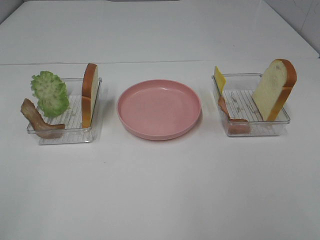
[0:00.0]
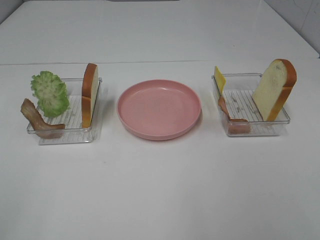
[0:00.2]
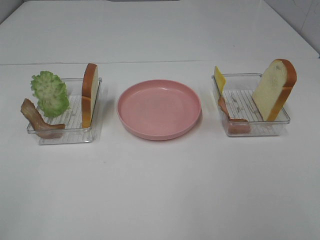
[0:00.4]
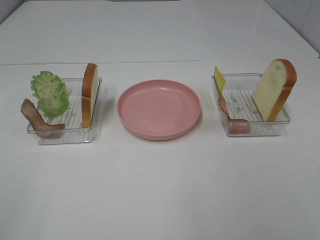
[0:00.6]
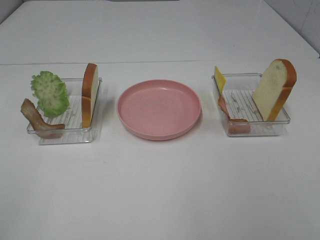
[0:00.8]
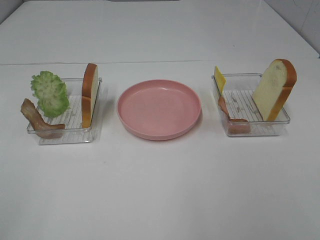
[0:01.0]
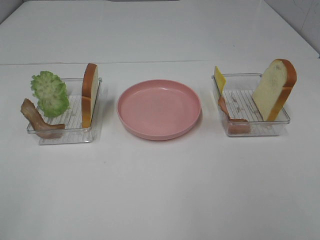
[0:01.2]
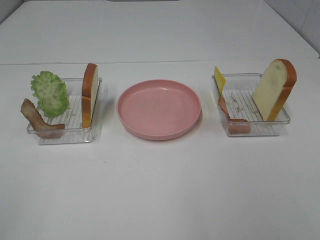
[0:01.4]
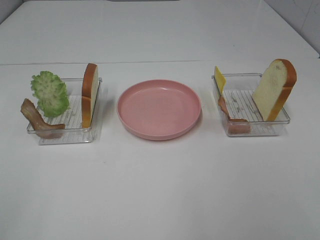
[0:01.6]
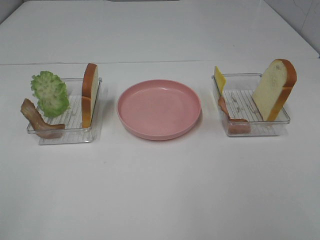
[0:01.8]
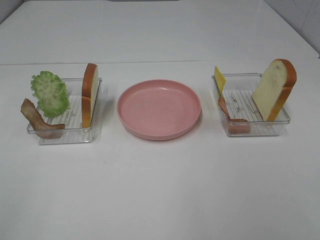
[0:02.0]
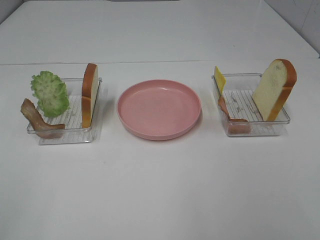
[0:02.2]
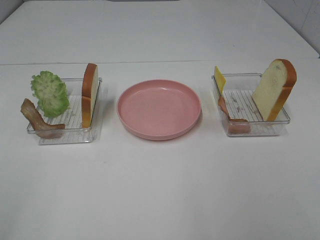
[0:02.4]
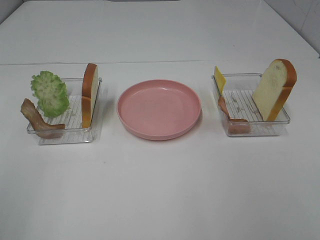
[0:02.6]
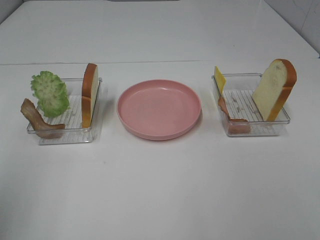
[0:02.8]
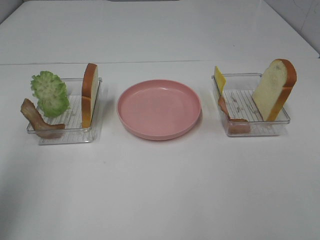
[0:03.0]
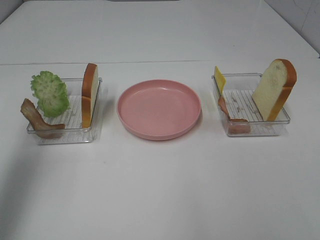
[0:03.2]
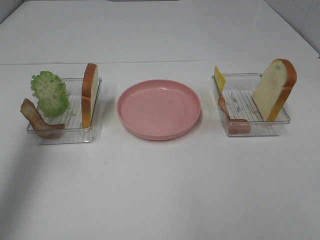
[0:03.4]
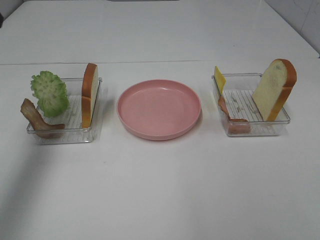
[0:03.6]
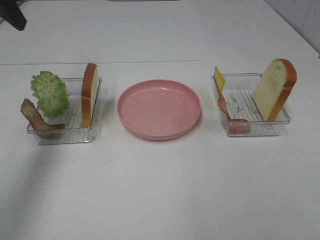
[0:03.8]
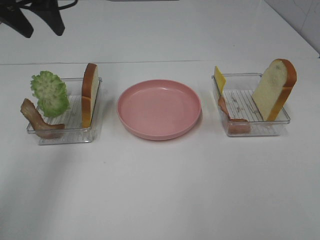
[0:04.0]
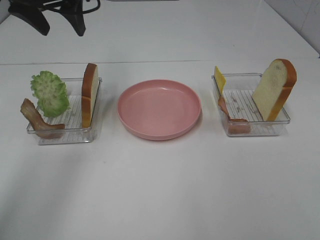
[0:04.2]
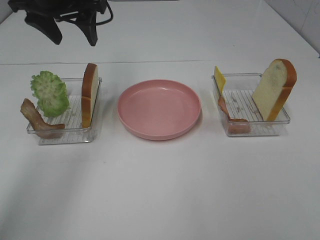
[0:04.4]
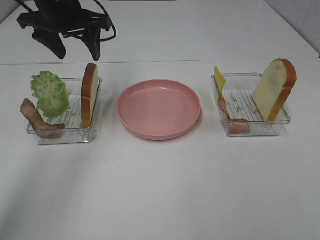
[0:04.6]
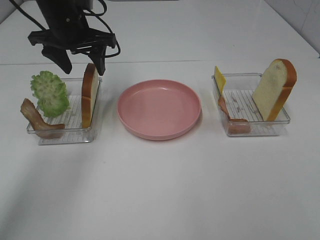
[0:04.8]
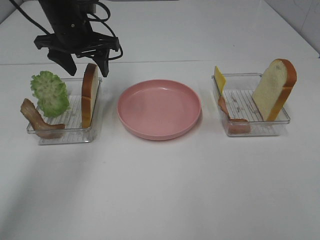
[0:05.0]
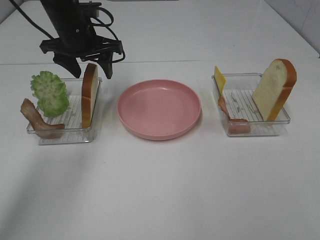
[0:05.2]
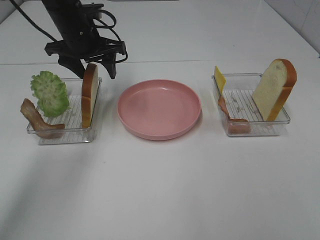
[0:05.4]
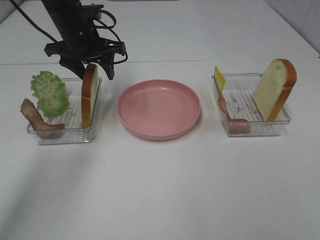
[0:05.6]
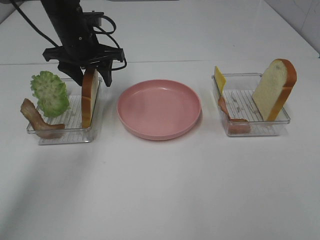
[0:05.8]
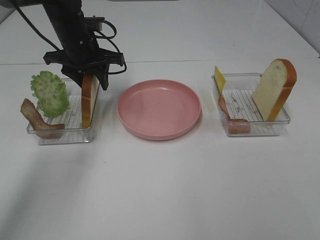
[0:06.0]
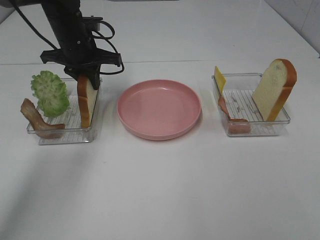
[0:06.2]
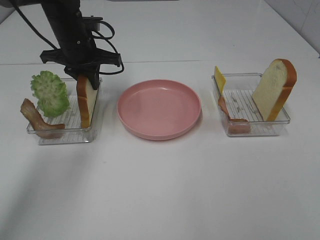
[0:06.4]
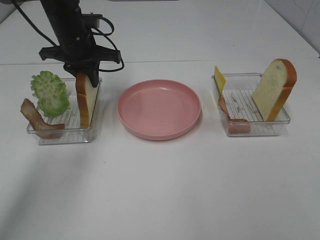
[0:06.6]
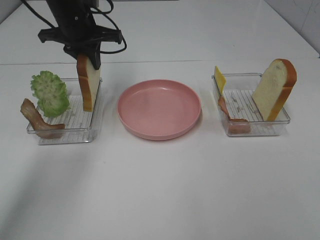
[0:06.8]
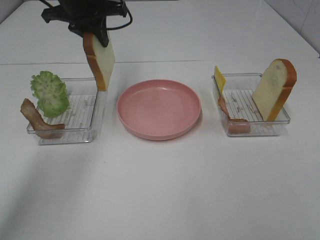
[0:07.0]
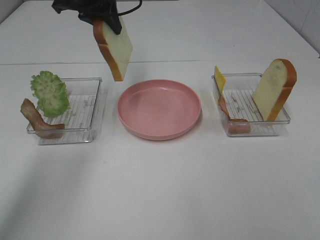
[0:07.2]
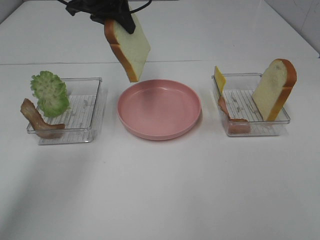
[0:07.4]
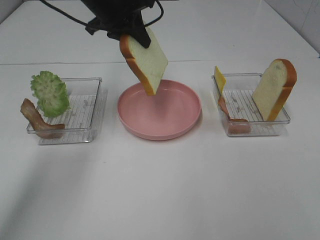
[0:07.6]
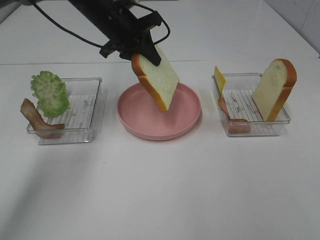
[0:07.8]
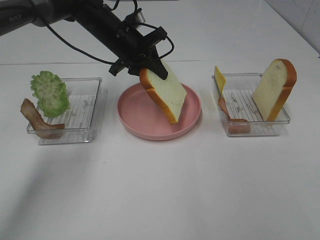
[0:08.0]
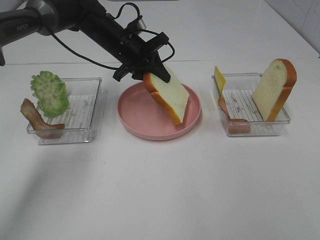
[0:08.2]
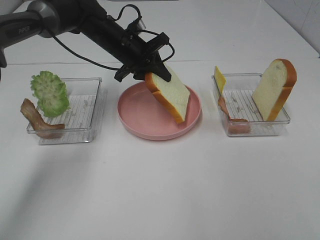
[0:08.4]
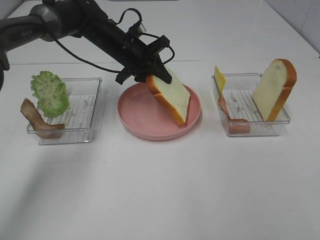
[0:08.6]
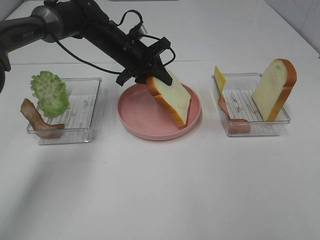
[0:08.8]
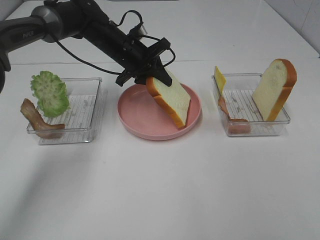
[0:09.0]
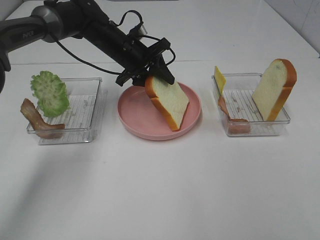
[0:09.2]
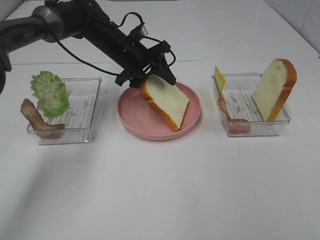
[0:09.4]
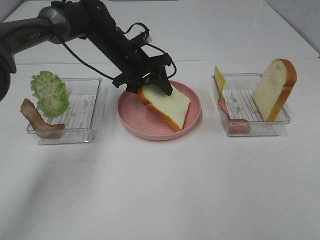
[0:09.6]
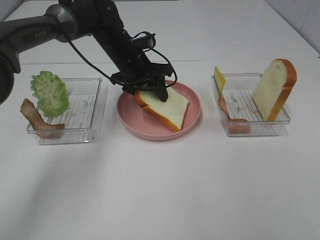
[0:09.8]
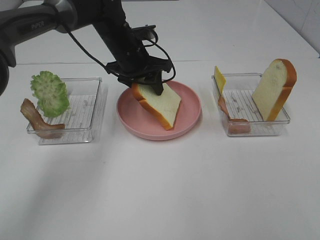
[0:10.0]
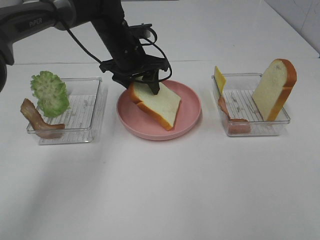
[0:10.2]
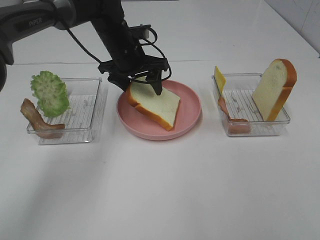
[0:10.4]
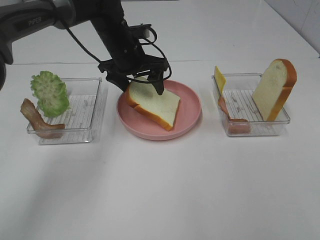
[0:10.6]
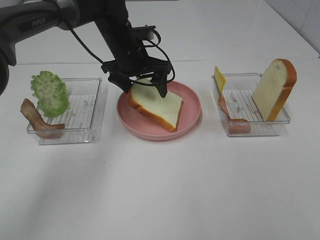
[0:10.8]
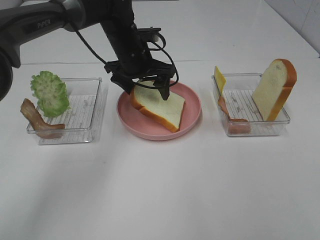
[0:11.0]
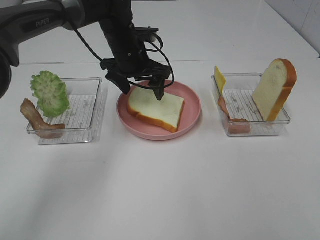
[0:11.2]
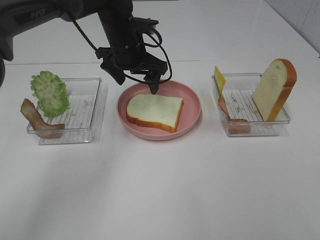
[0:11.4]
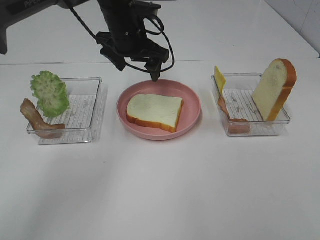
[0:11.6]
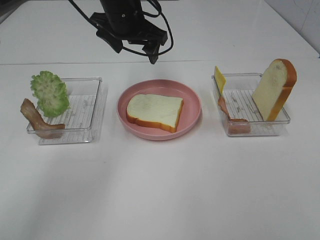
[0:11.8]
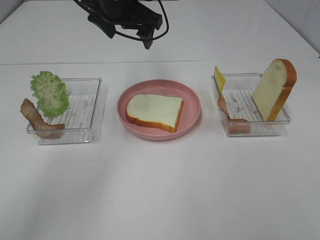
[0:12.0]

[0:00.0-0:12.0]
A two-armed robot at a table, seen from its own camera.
Task of the whole recording: Make sandwiches.
Step, 0:00.0 to 0:06.4: Left hand:grab the bread slice.
Step, 0:06.6 to 0:11.4: Left hand:place the bread slice on the plate.
0:00.0 to 0:01.6: Neither gripper changes place.
0:01.6 to 0:03.0: The left gripper moves forward, approximately 15 cm.
0:03.0 to 0:04.4: The left gripper moves forward and to the right, roughly 30 cm.
0:04.4 to 0:06.0: The left gripper travels downward by about 10 cm.
0:06.0 to 0:07.6: The left gripper heads upward, covering some 5 cm.
0:07.6 to 0:09.0: The left gripper shifts approximately 10 cm downward.
0:09.0 to 0:10.4: The left gripper opens its fingers.
0:10.4 to 0:12.0: The left gripper moves upward, some 10 cm.

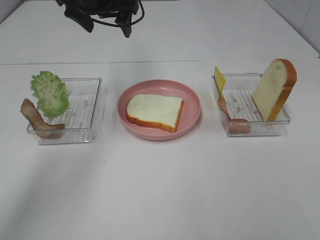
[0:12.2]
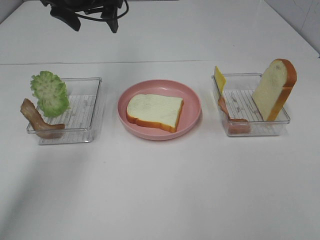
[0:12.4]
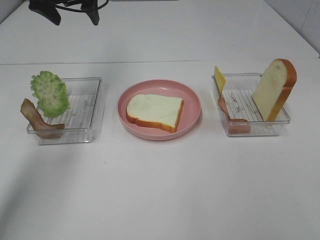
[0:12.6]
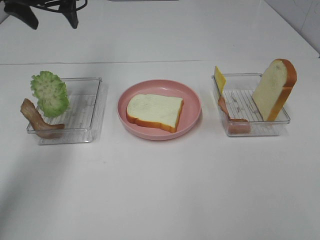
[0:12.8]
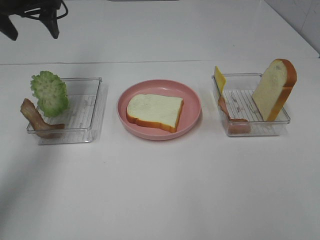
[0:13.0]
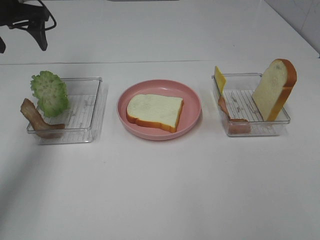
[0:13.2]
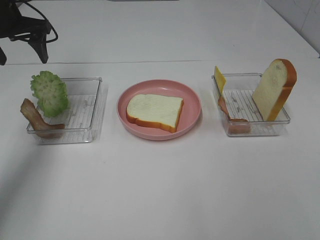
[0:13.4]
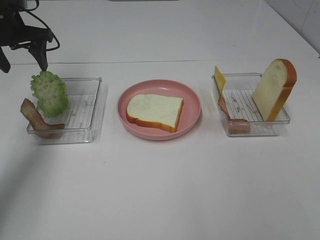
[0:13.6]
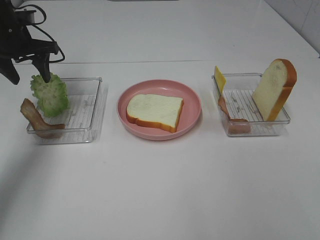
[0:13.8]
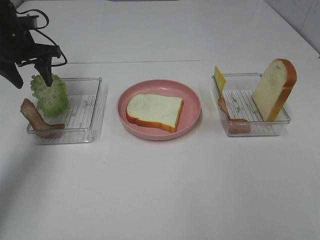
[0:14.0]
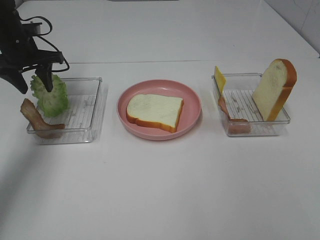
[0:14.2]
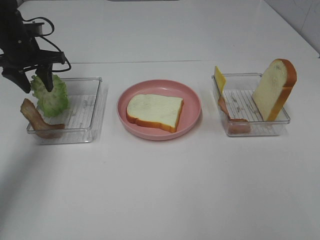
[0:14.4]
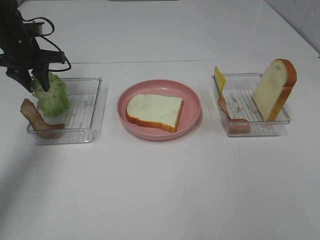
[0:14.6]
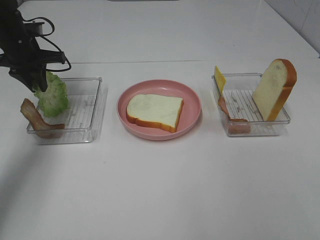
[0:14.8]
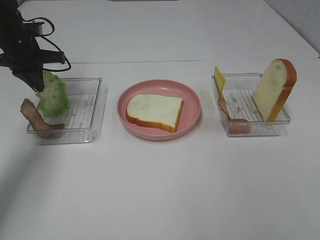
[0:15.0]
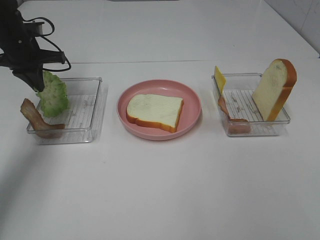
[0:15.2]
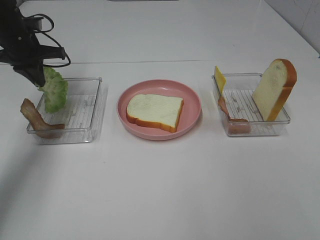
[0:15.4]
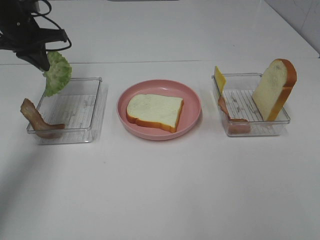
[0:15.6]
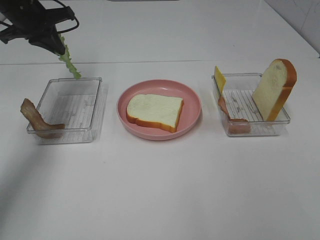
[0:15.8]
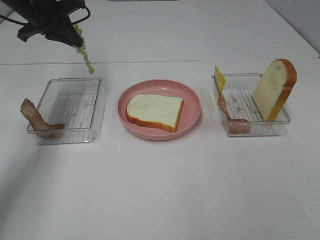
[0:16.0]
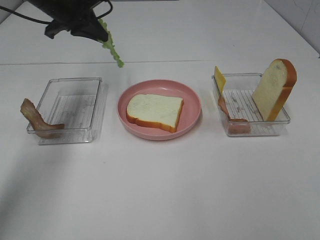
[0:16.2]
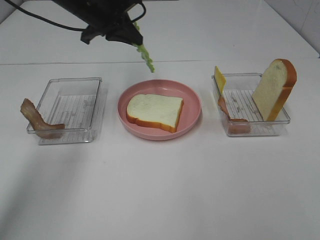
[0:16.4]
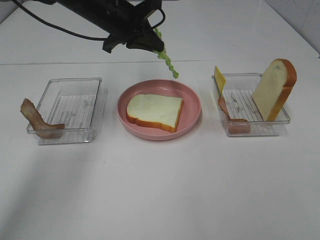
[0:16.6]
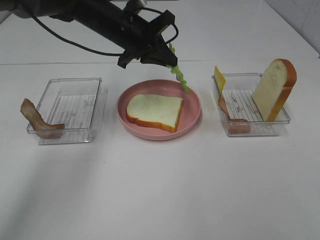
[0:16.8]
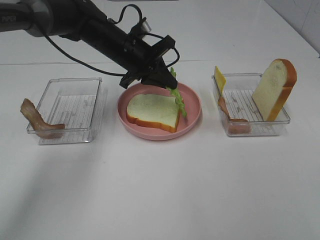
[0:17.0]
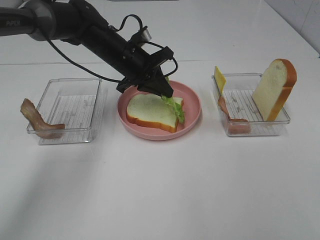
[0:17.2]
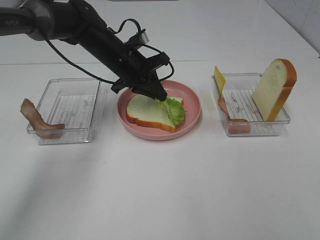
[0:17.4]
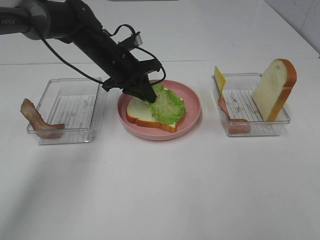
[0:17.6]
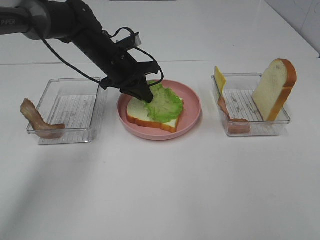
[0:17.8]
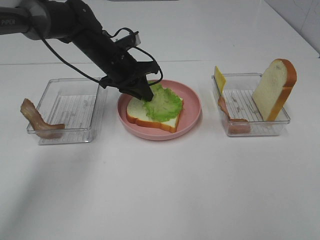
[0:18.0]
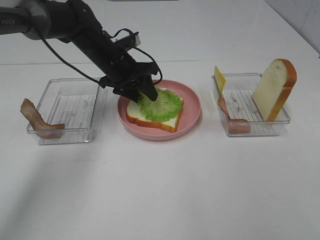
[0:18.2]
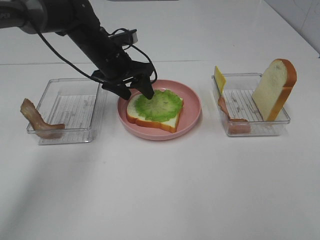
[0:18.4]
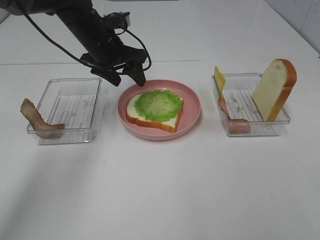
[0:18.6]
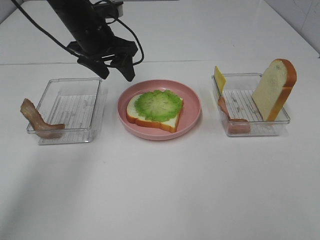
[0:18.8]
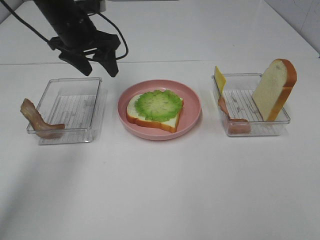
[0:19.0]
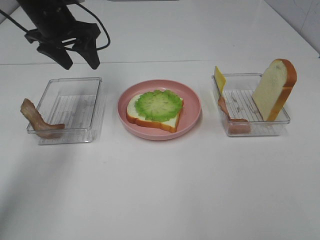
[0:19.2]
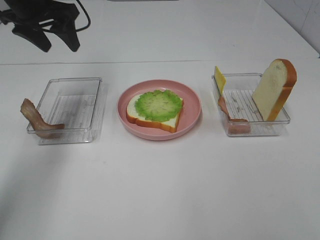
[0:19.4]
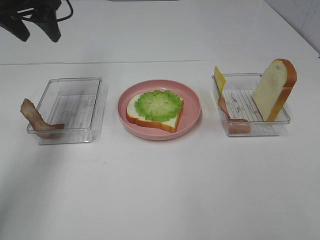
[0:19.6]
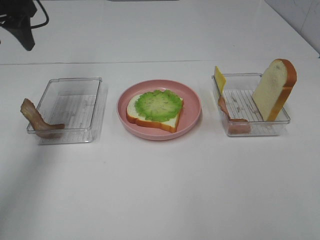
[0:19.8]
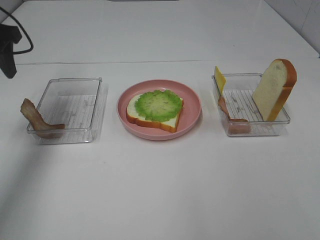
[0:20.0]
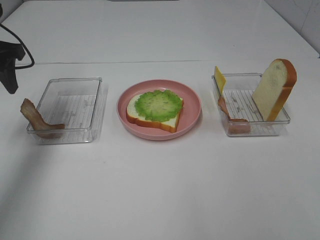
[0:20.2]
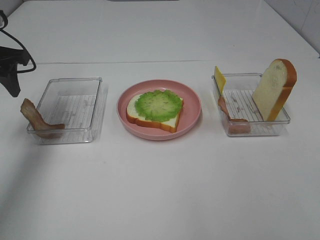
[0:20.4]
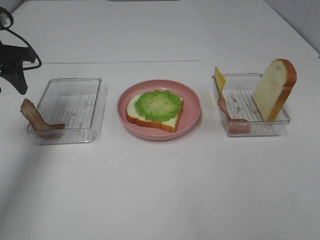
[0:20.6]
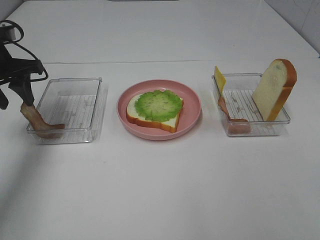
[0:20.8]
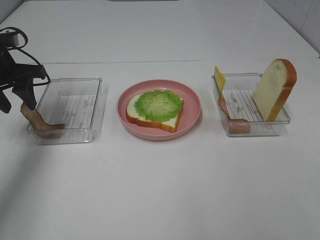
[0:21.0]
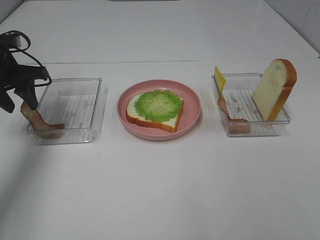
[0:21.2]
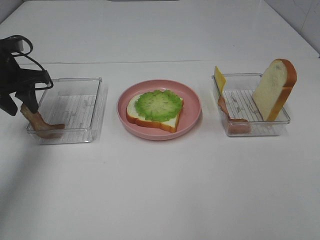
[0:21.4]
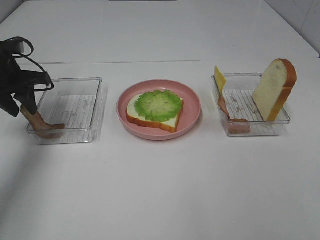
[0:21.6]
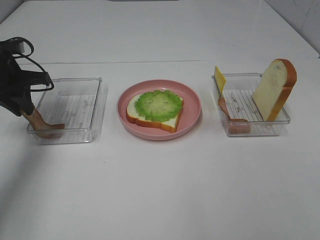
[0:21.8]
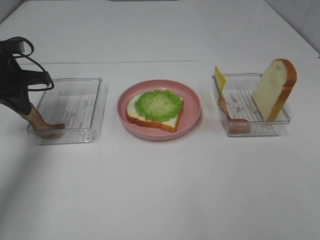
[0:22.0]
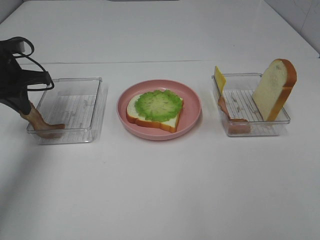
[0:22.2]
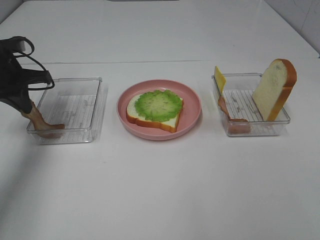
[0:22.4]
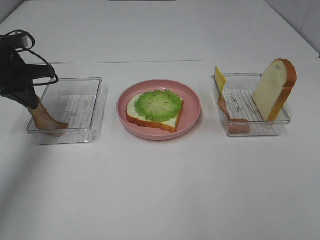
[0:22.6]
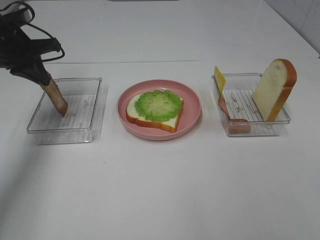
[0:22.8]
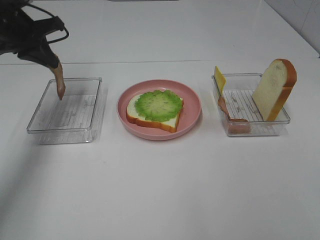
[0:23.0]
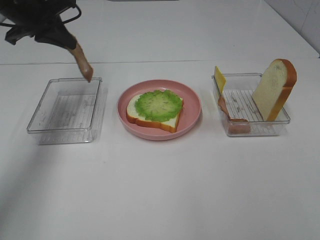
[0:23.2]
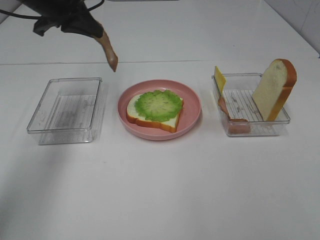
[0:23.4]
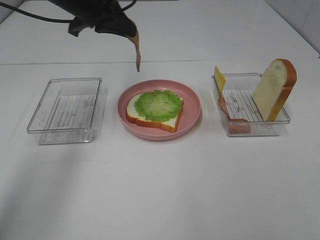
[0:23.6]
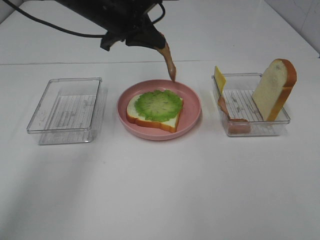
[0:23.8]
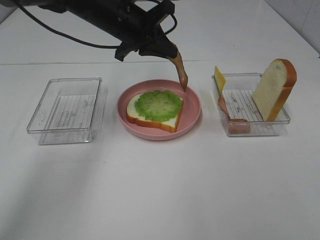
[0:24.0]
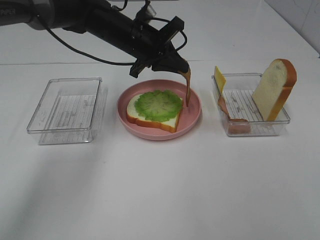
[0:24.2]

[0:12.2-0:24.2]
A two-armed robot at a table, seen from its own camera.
Task of the whole recording: Make sandwiches.
Step, 0:12.2 to 0:15.0: Left hand:grab the lettuce slice.
Step, 0:15.2 to 0:18.6: Left hand:place the lettuce slice on the bread slice.
Step, 0:18.8 to 0:22.0: Left hand:grab the bacon.
0:12.2 to 0:13.8: The left gripper goes roughly 20 cm to the left and downward.
0:13.8 to 0:15.2: The left gripper closes up.
0:15.2 to 0:16.6: The left gripper goes roughly 20 cm to the right.
0:16.6 to 0:18.2: The left gripper heads downward, covering some 10 cm, and opens its fingers.
0:18.2 to 0:19.8: The left gripper goes roughly 25 cm to the left and upward.
0:19.8 to 0:21.2: The left gripper moves downward, some 10 cm.
0:21.2 to 0:22.6: The left gripper closes its fingers.
0:22.6 to 0:24.2: The left gripper moves to the right, approximately 25 cm.
